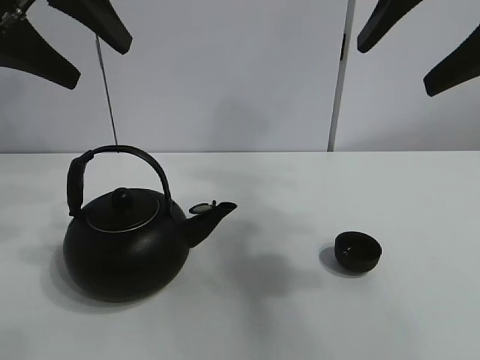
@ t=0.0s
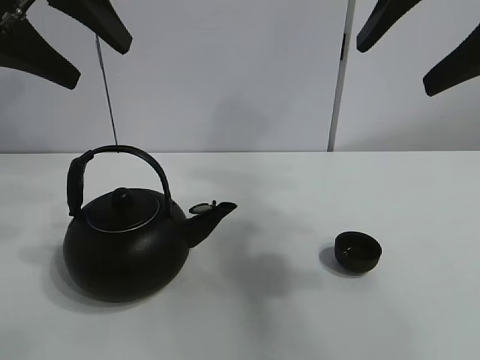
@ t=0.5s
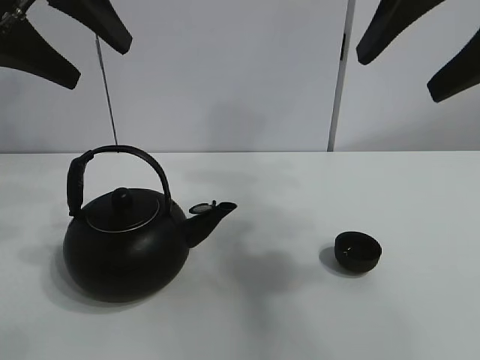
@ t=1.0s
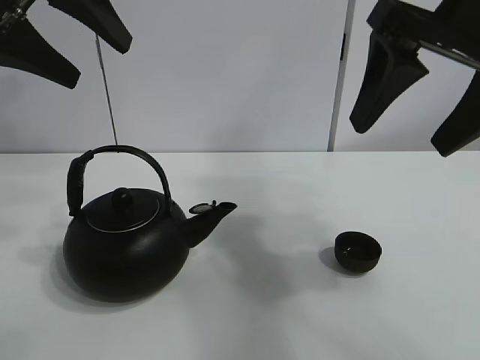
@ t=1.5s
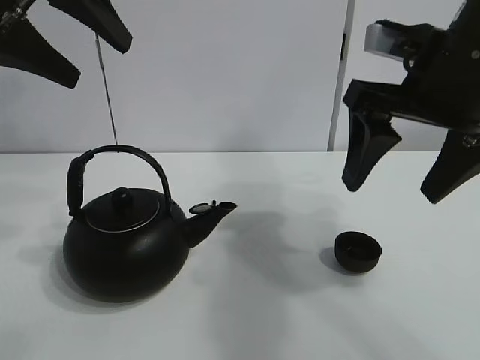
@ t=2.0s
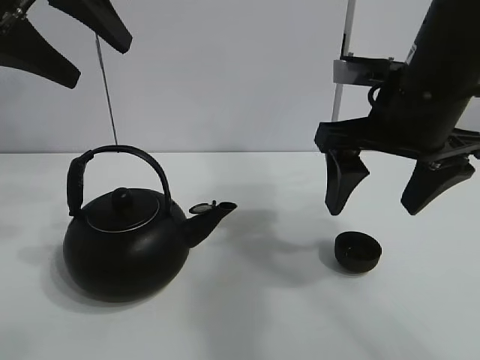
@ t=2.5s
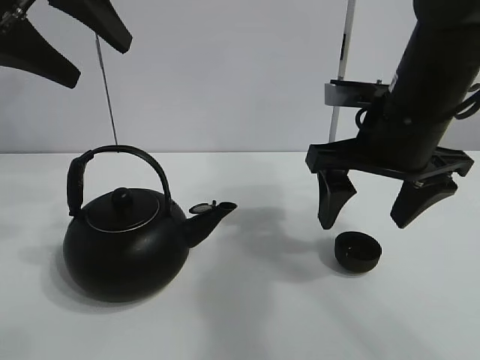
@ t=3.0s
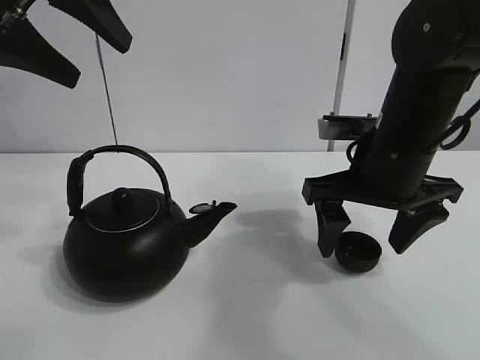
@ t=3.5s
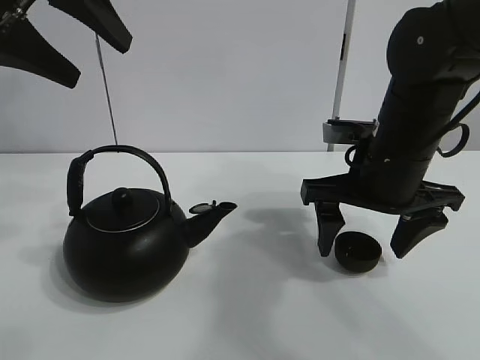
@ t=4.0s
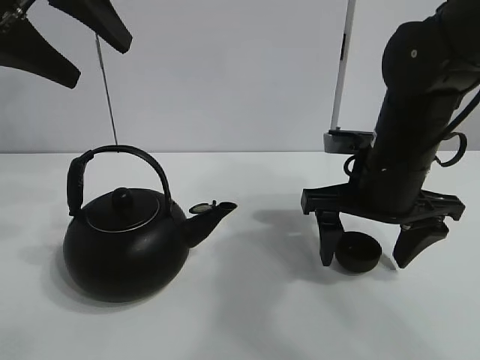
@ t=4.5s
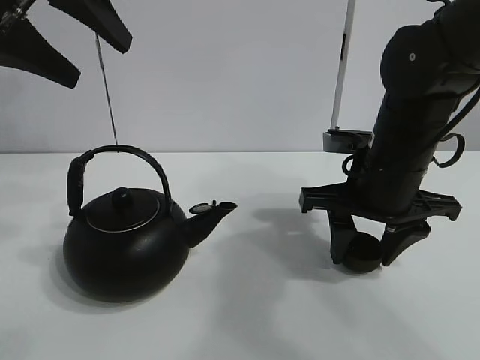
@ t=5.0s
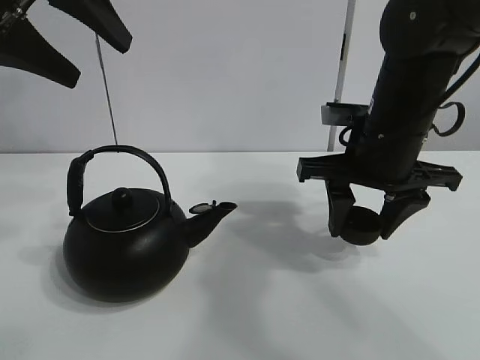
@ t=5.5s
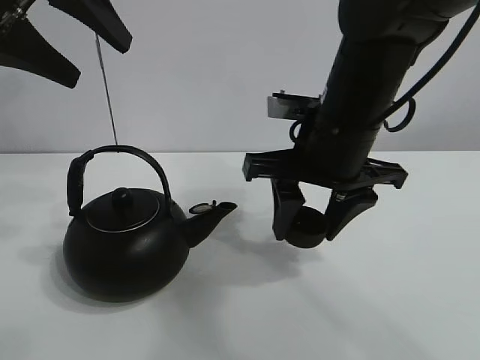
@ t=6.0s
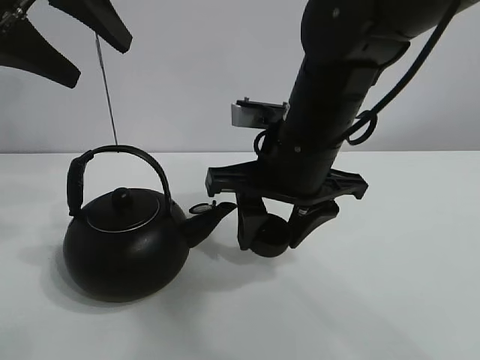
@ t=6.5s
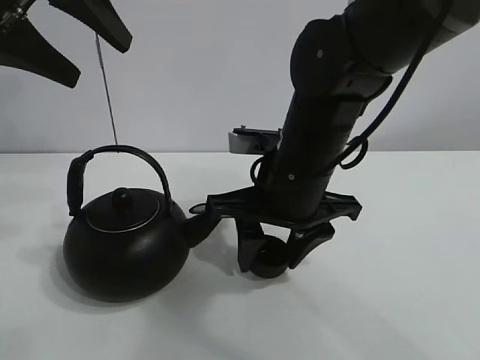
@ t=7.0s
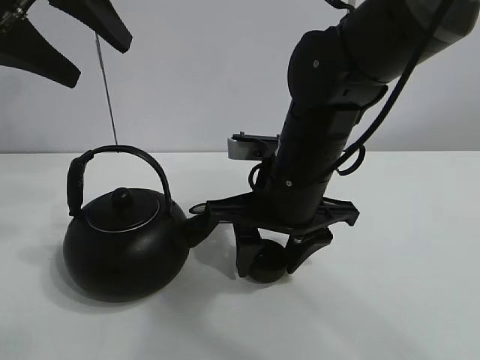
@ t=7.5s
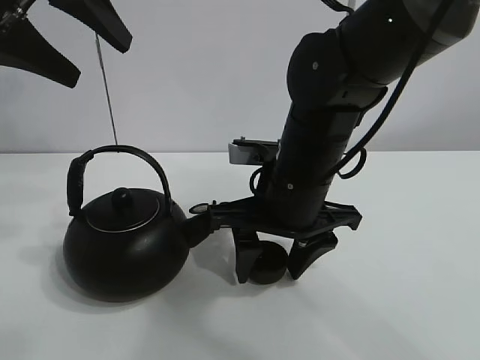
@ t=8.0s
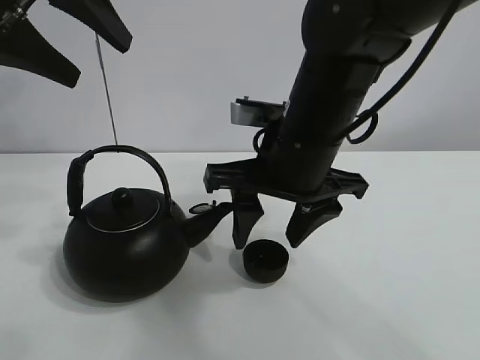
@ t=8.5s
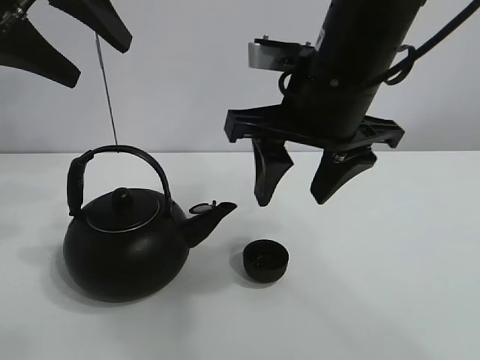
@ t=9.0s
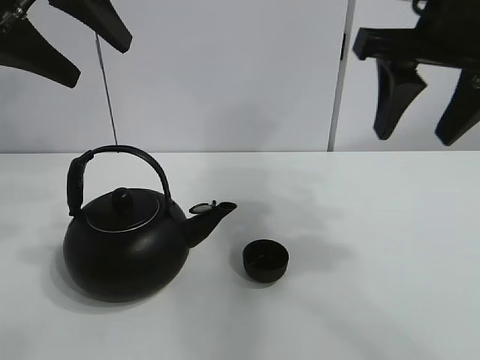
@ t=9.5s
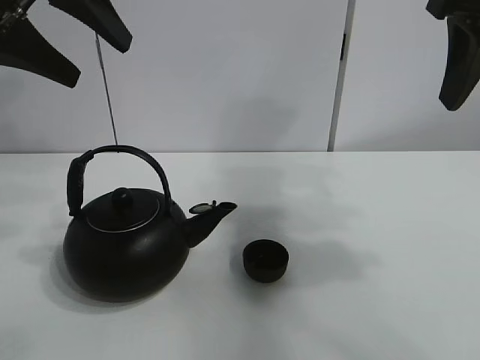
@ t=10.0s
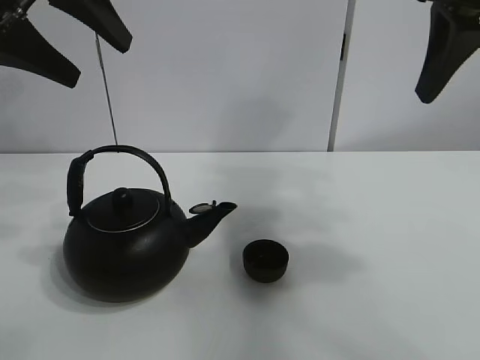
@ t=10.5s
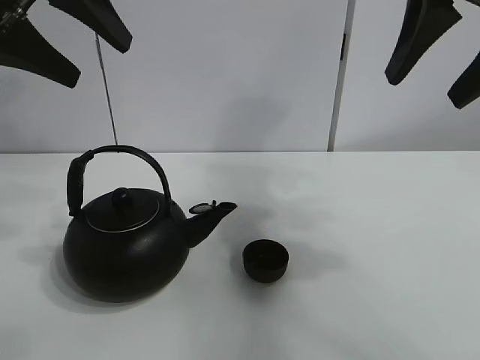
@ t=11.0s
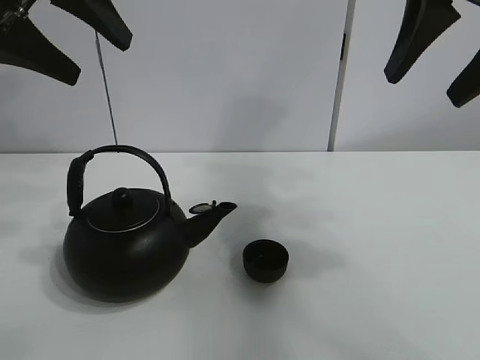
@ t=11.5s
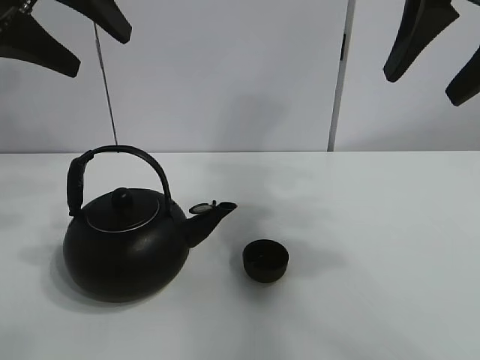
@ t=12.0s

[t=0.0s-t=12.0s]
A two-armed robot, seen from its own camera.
Task of the whole recording: pour tea into the teacup.
Step, t=0.0s to t=4.5s: Pick up the teacup with the right gripper.
Step, t=5.0s to t=8.0s: Place the teacup in the center of view with the right gripper.
t=2.0s to t=4.0s: The right gripper moves downward, approximately 10 cm.
t=4.0s to t=6.0s: The right gripper is displaced to the left by approximately 5 cm, and closes its fingers.
t=6.0s to t=8.0s: The right gripper heads downward, covering some 5 cm.
t=8.0s to t=10.0s: The right gripper moves upward and to the right, some 25 cm.
t=10.0s to t=12.0s: The grippers stay close to where they were, moving slightly.

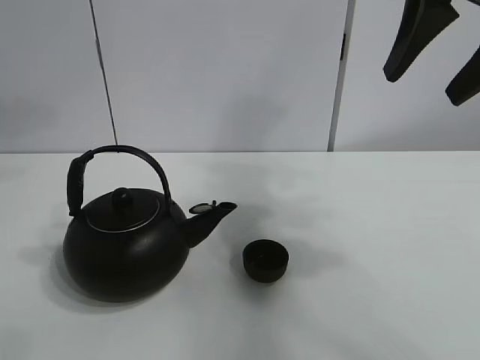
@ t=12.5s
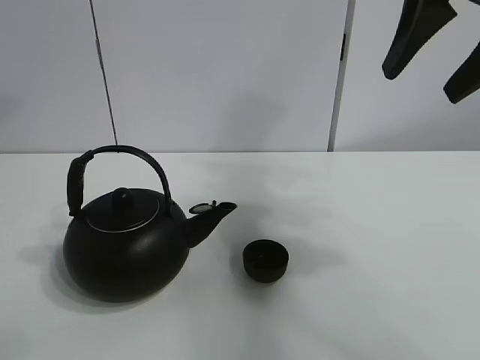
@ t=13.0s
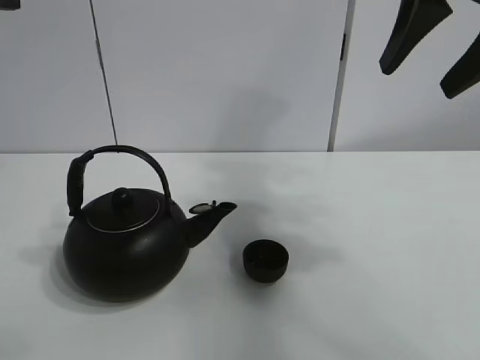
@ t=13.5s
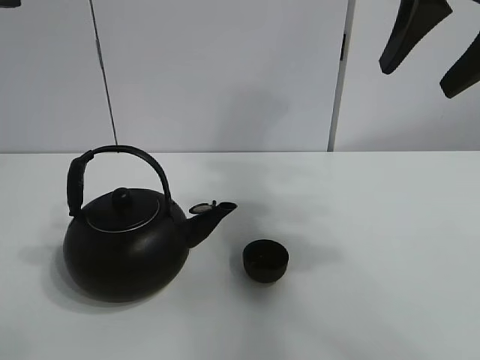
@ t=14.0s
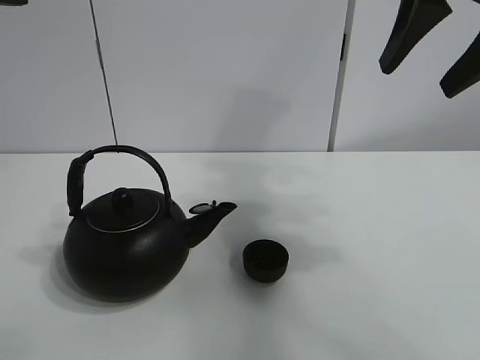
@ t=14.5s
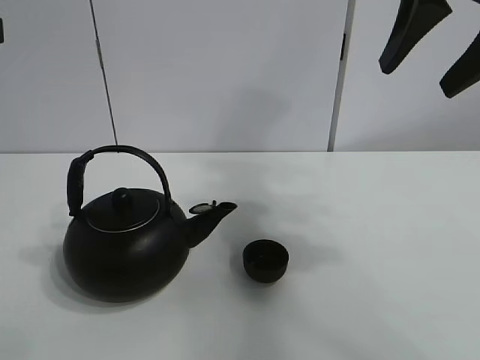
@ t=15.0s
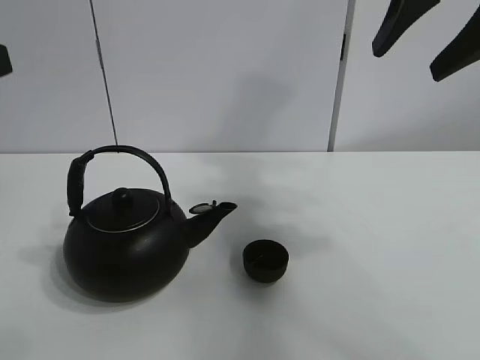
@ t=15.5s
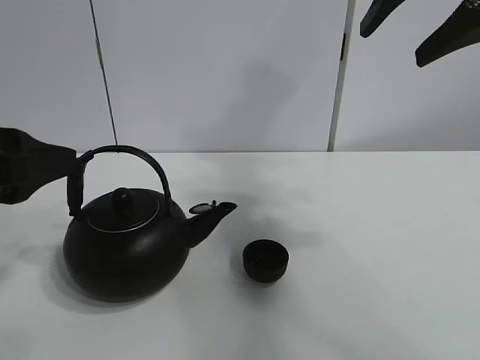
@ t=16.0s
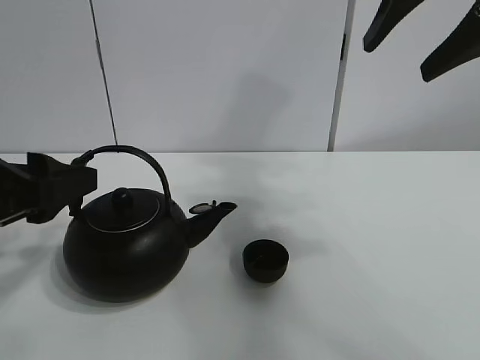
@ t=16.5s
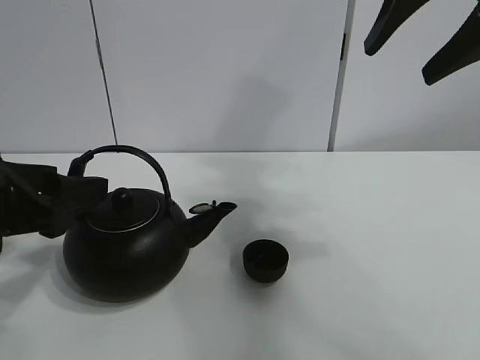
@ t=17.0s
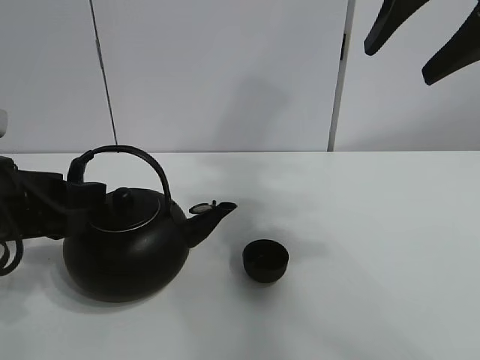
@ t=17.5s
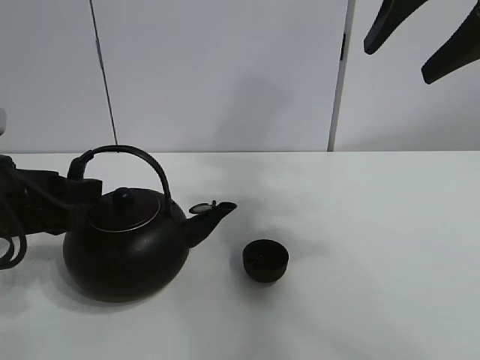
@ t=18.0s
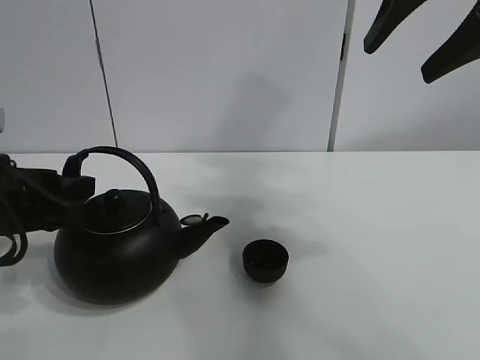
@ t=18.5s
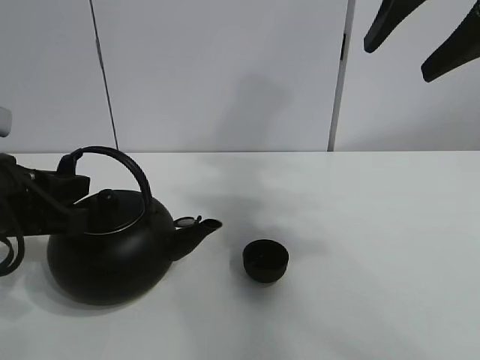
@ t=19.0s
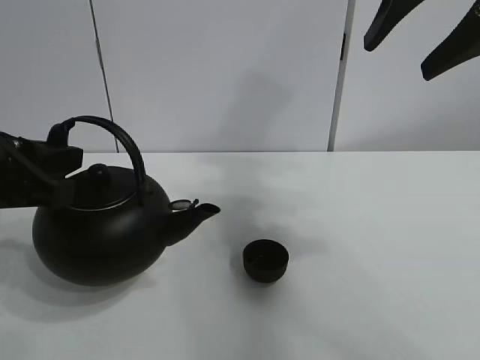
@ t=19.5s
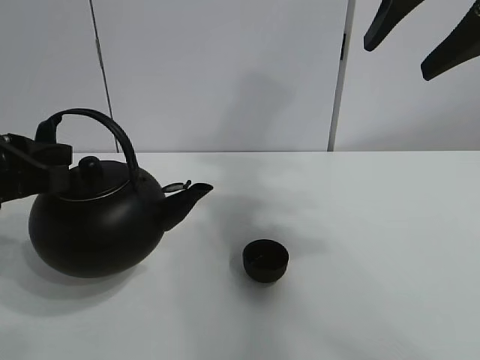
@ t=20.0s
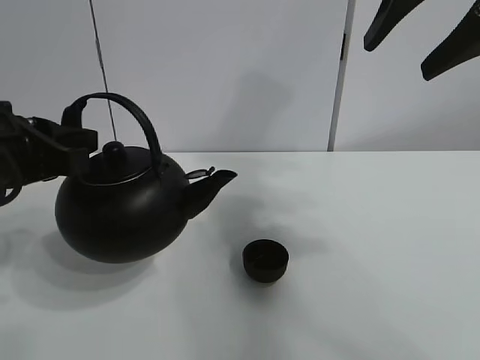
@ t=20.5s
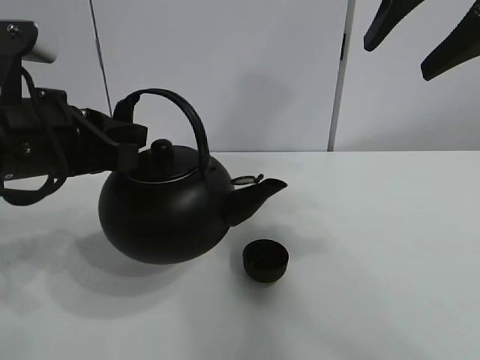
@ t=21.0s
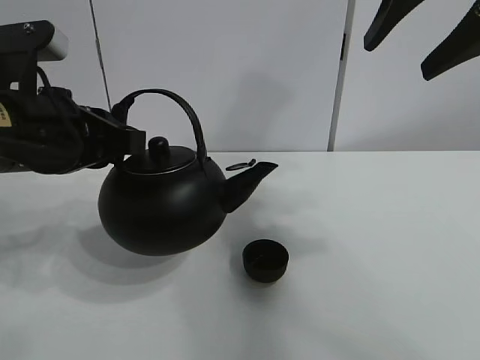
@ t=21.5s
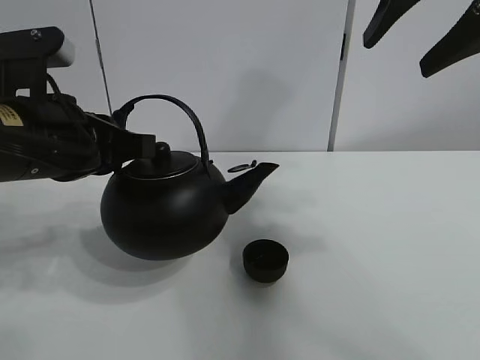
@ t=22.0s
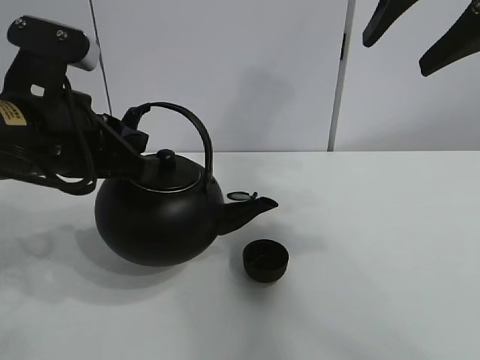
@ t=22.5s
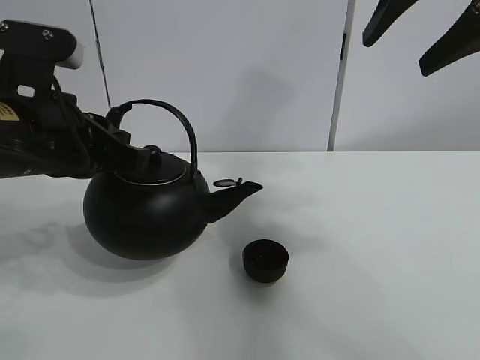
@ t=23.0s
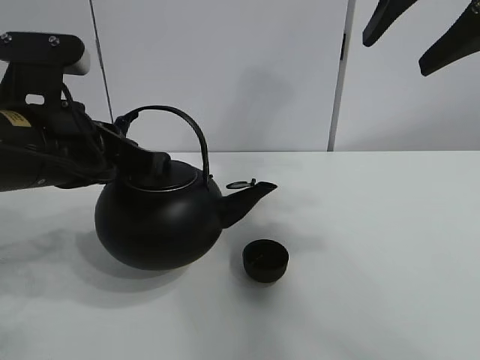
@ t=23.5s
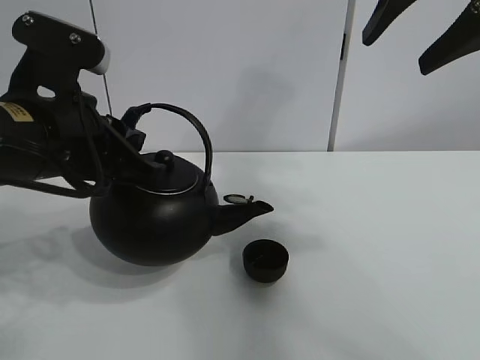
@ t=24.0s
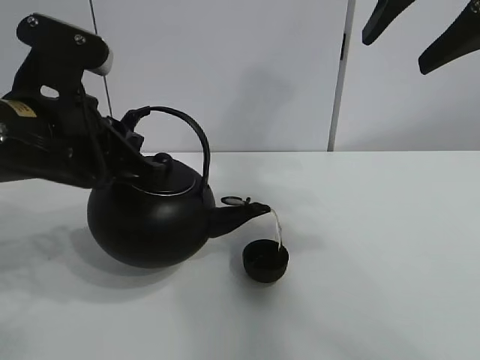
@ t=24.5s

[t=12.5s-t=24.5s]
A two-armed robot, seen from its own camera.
Task of the whole recording: pour tea into the teacup.
Step, t=12.5s to t=19.0s: Pick up the teapot with the left gripper.
t=14.5s to t=16.5s: The left gripper moves downward, about 15 cm.
t=16.5s to t=18.5s: The grippers make only small movements.
t=18.5s to t=20.5s: The left gripper closes its fingers.
t=20.5s to t=22.5s: The left gripper heads to the right, covering roughly 5 cm.
t=22.5s to t=24.5s: The grippers move only a little.

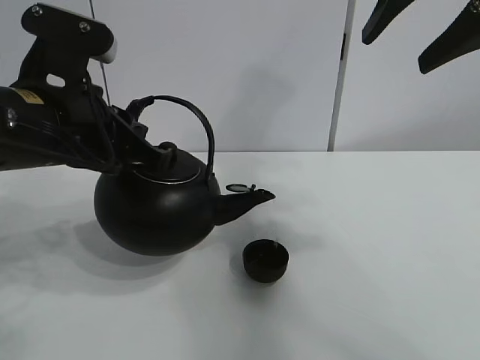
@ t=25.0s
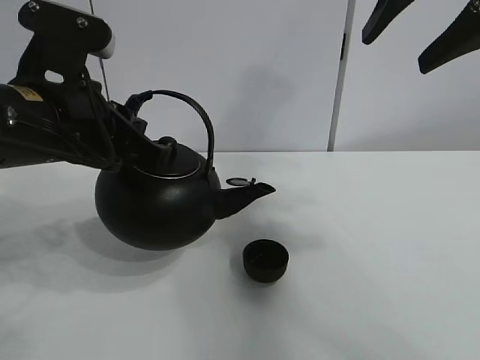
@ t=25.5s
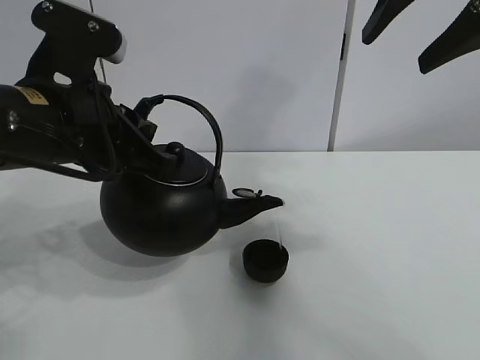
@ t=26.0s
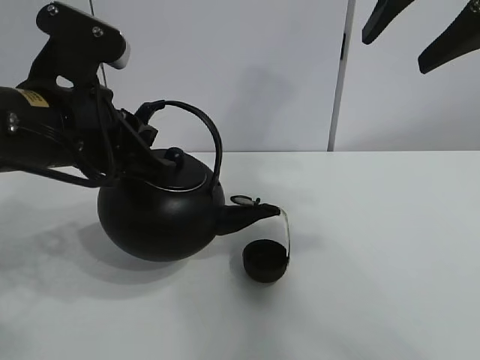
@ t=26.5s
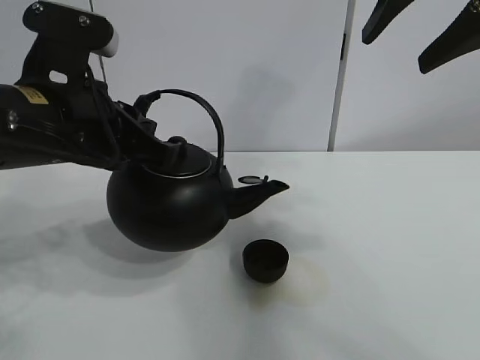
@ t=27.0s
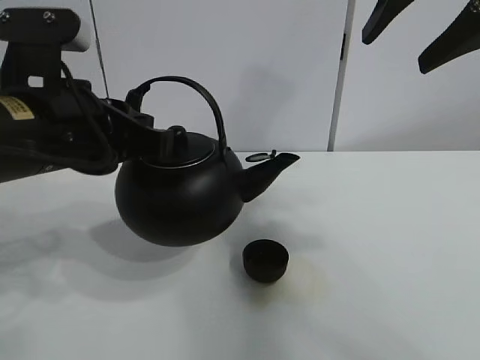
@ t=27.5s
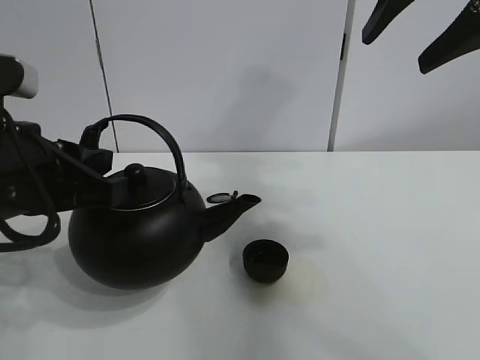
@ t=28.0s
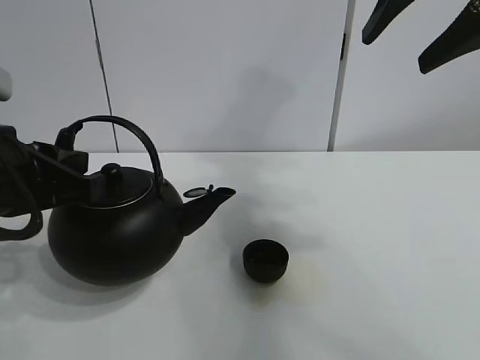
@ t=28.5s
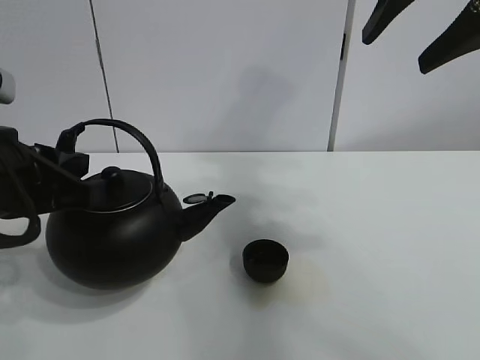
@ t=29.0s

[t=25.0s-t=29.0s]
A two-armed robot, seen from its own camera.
Task of the whole recording: pour tea into the teacup.
Step, t=25.0s to t=27.0s: Pour tea into the teacup with the left gripper.
t=25.0s to t=27.0s: The grippers stay close to where they were, moving slightly.
t=27.0s to t=29.0s: The left gripper goes roughly 5 cm to the left.
